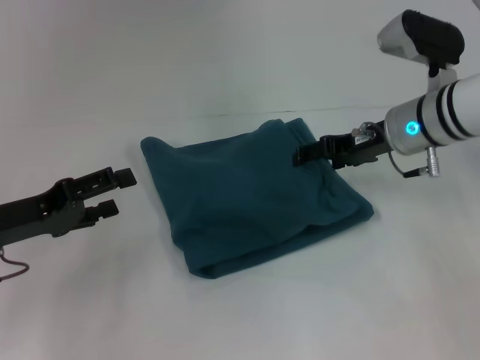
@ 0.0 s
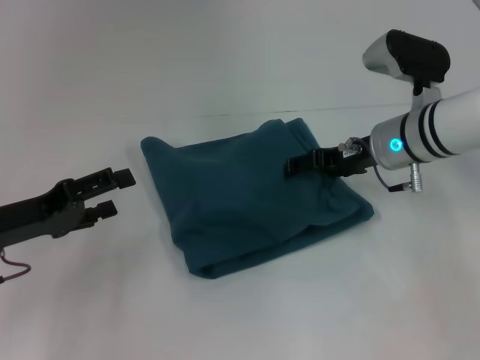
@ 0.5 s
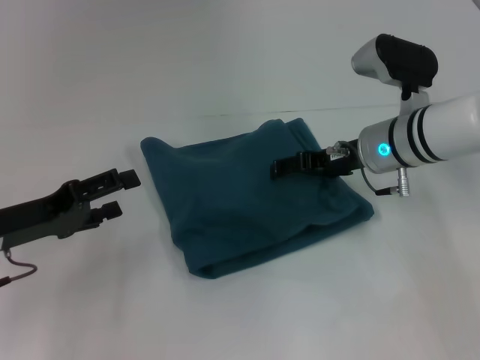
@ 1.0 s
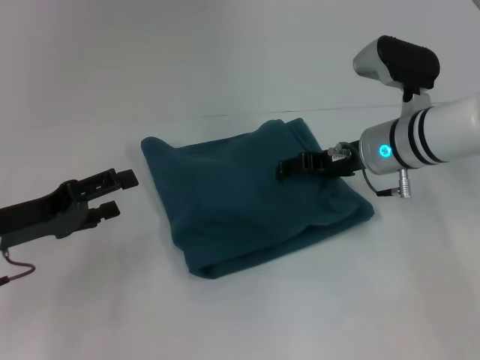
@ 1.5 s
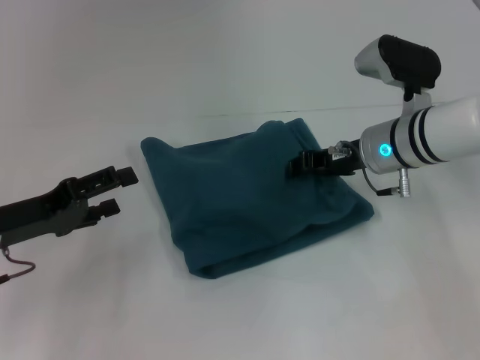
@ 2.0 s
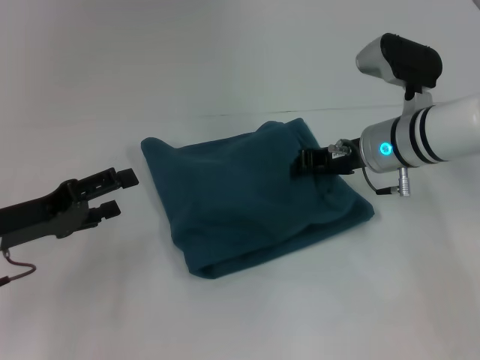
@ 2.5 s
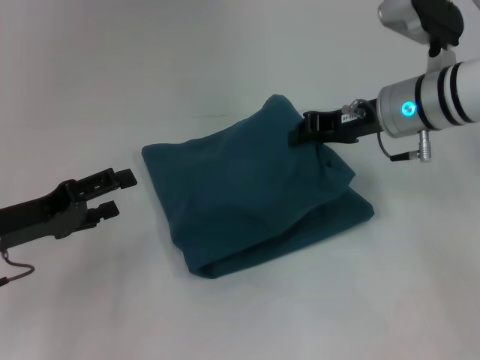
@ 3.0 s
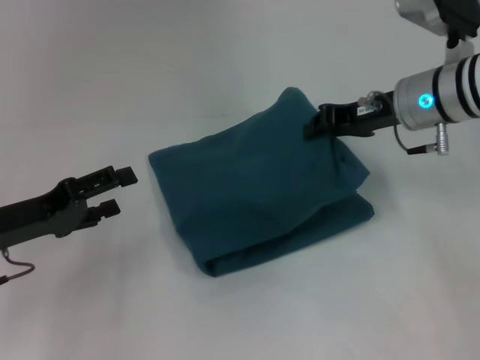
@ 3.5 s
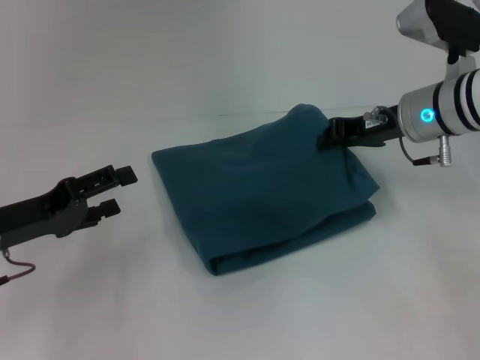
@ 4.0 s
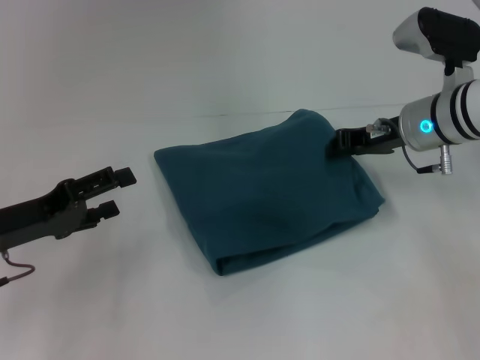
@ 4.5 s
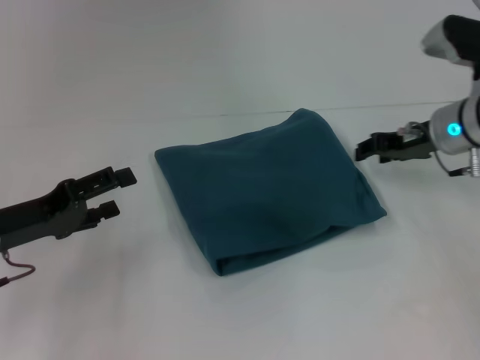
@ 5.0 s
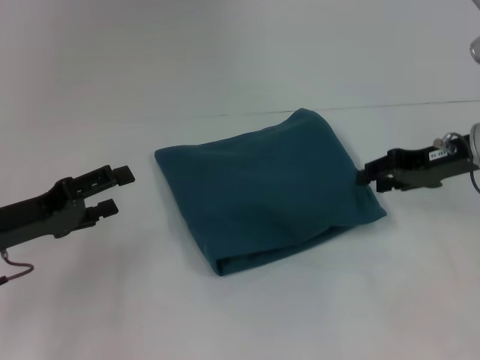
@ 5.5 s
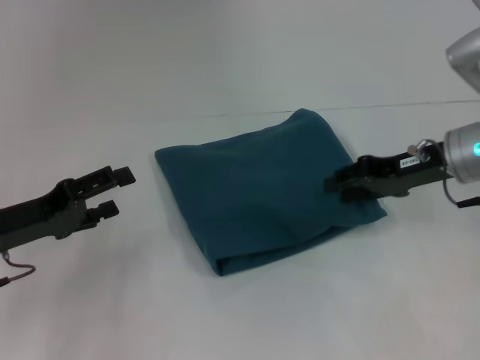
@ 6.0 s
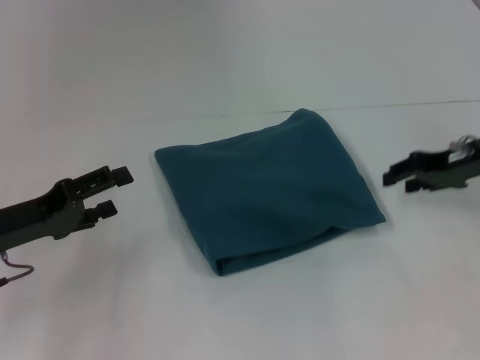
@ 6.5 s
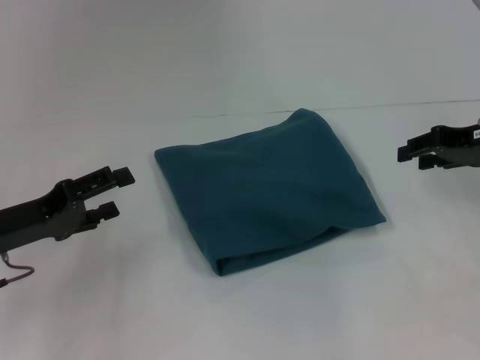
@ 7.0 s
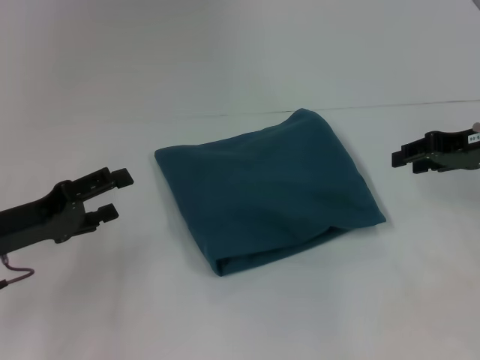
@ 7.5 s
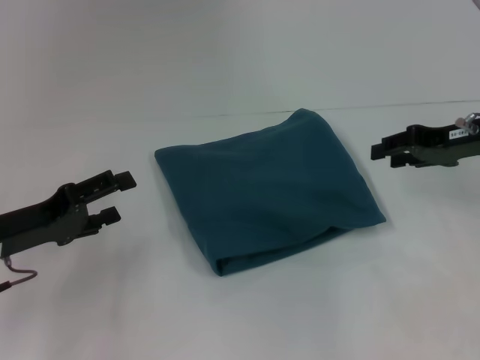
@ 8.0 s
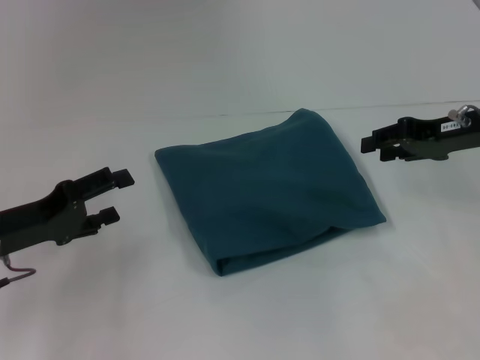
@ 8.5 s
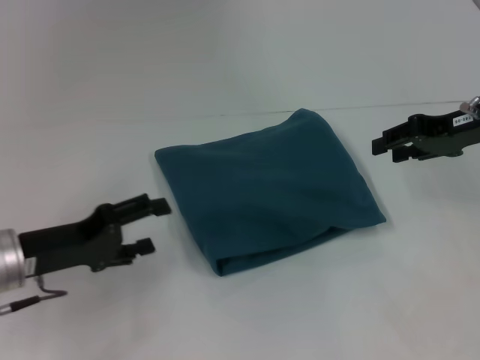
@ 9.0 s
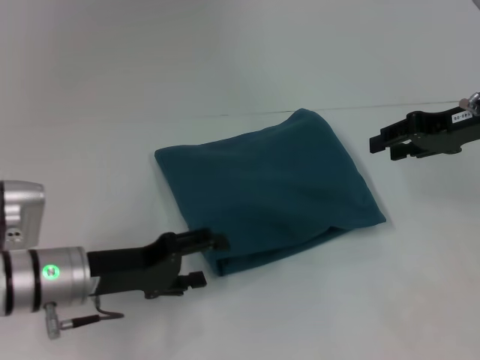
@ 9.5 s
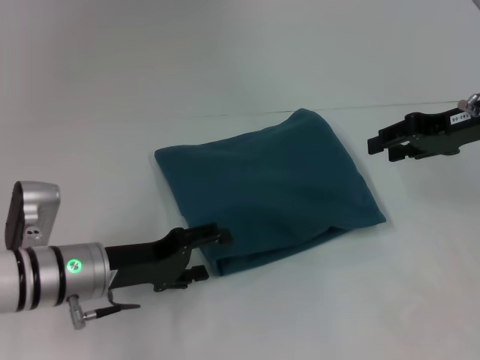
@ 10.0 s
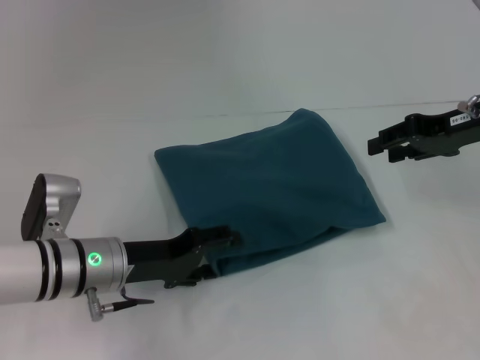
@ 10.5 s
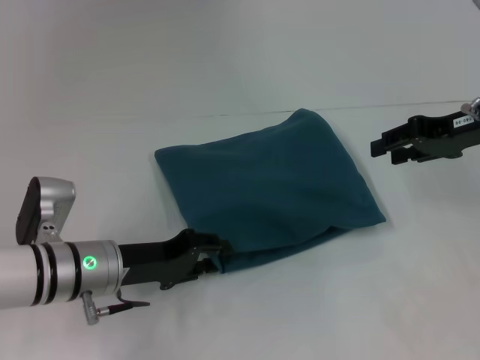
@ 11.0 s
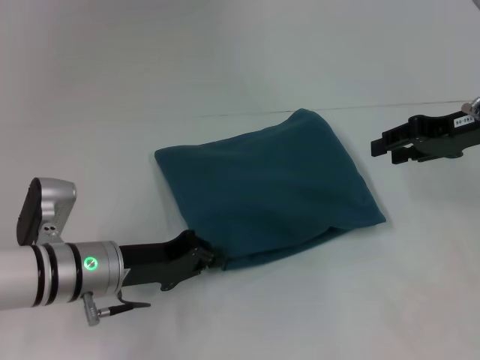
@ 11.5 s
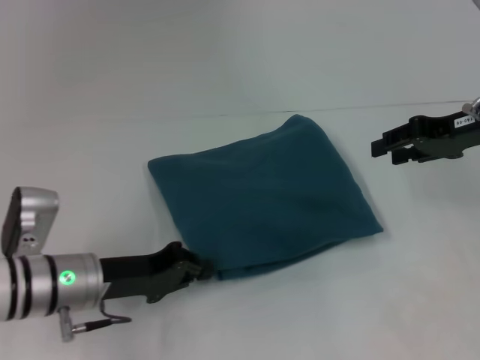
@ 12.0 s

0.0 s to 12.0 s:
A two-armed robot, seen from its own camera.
0.0 to 2.0 s: The right gripper closes its fingers.
2.0 to 4.0 s: The right gripper shifts by roughly 5 cm.
4.0 to 6.0 s: The right gripper changes place by approximately 5 cm, and opens.
8.0 to 10.0 s: The left gripper travels to the right by about 10 cm.
10.0 to 12.0 s: The left gripper closes its fingers.

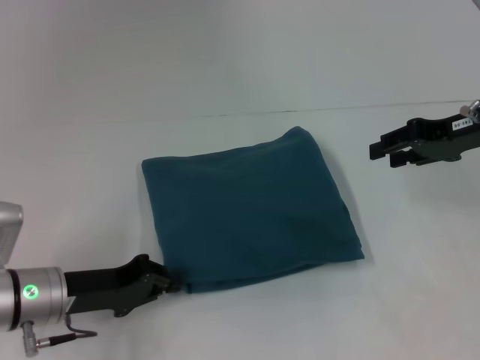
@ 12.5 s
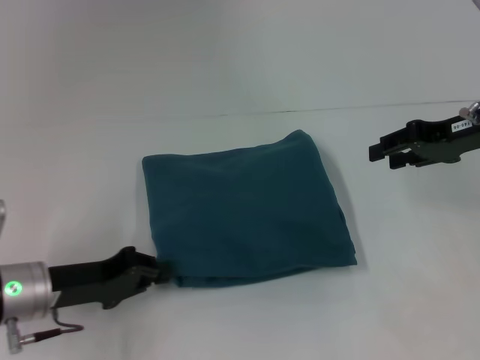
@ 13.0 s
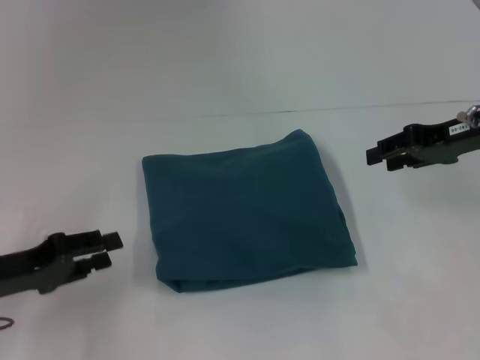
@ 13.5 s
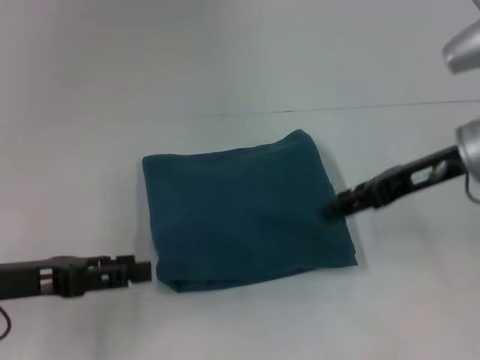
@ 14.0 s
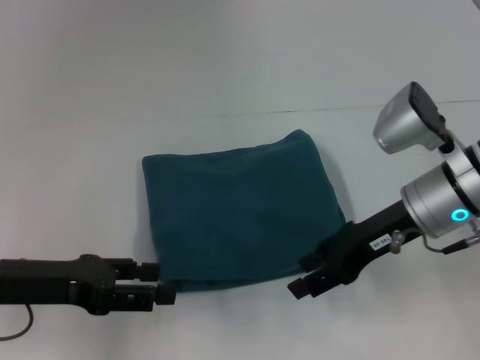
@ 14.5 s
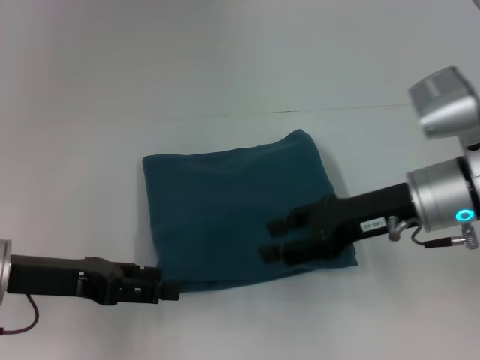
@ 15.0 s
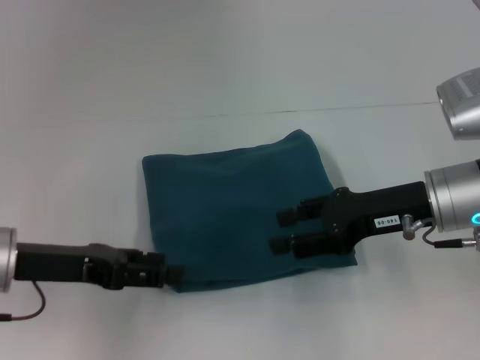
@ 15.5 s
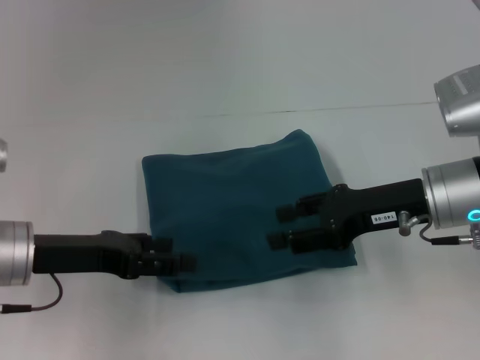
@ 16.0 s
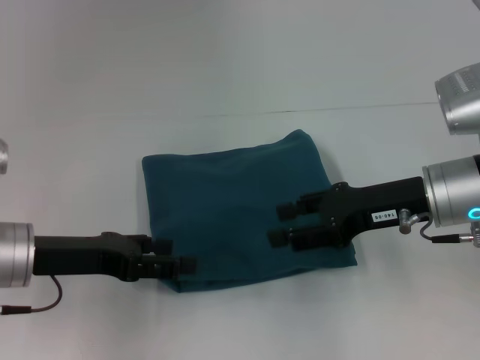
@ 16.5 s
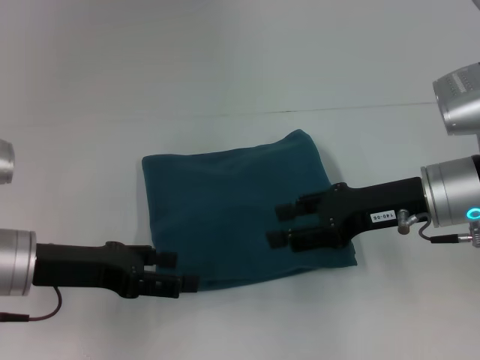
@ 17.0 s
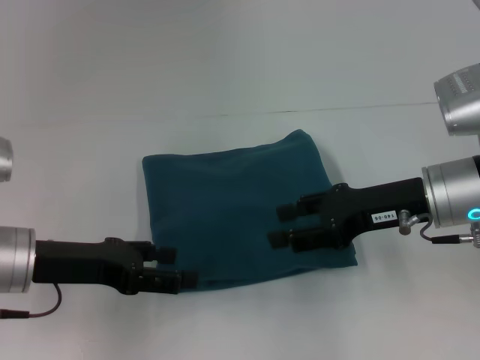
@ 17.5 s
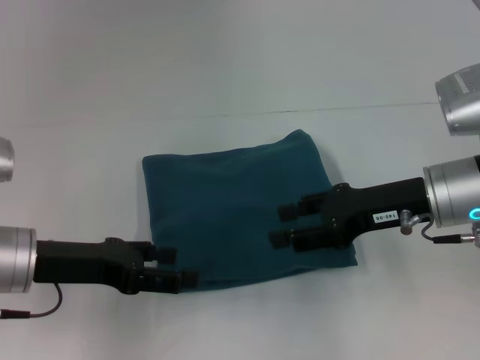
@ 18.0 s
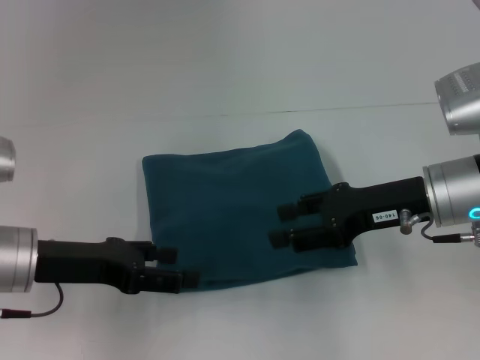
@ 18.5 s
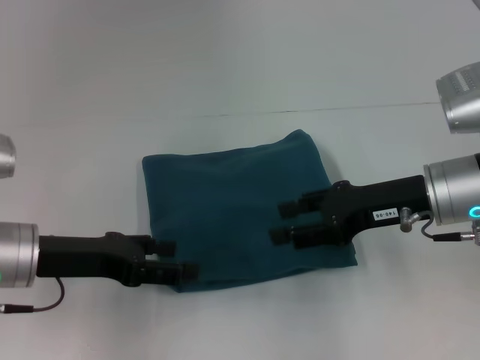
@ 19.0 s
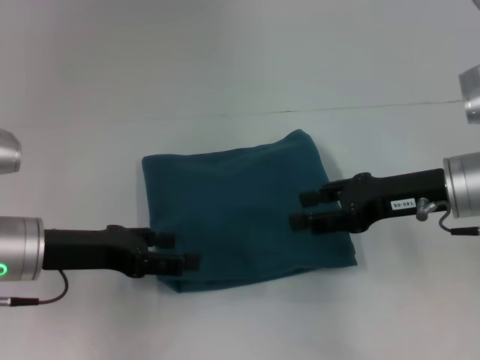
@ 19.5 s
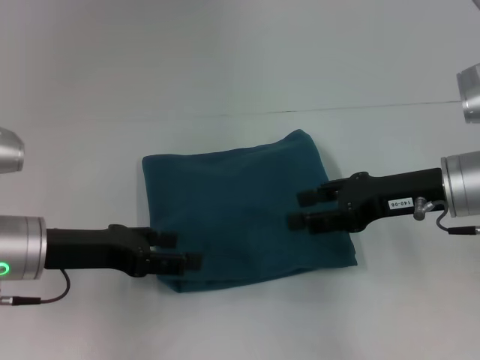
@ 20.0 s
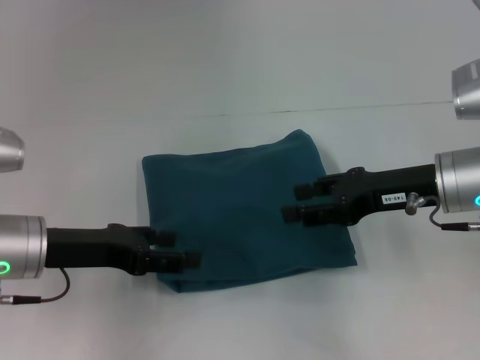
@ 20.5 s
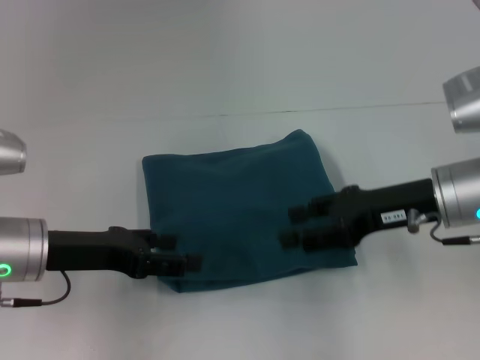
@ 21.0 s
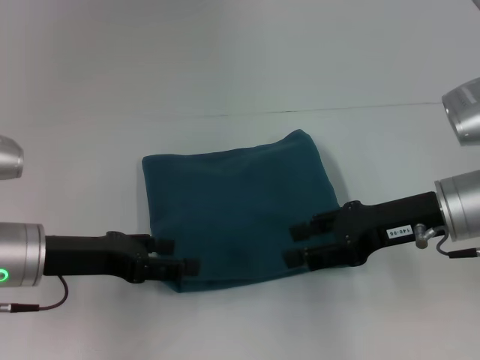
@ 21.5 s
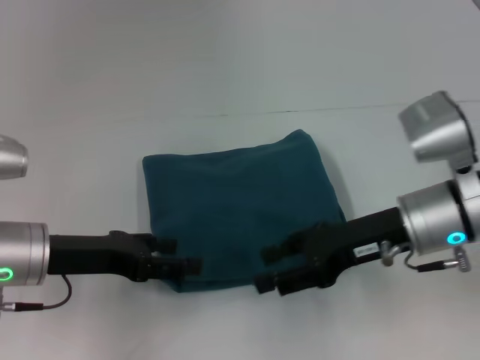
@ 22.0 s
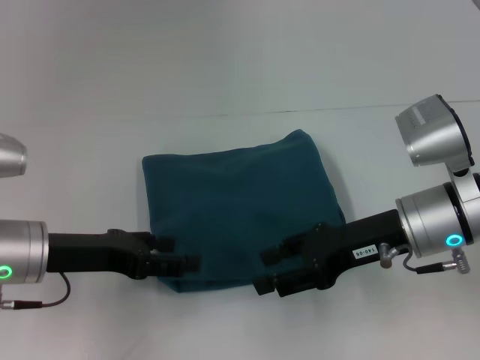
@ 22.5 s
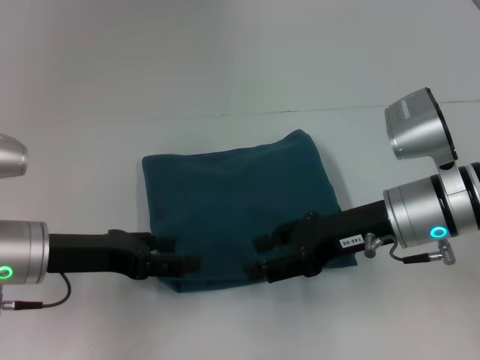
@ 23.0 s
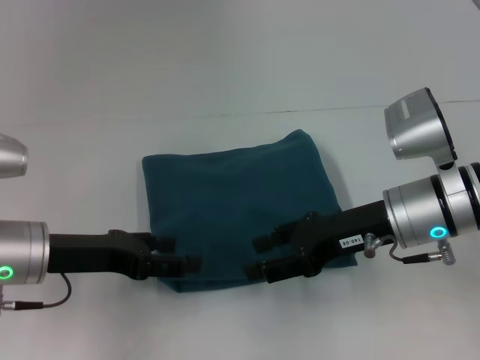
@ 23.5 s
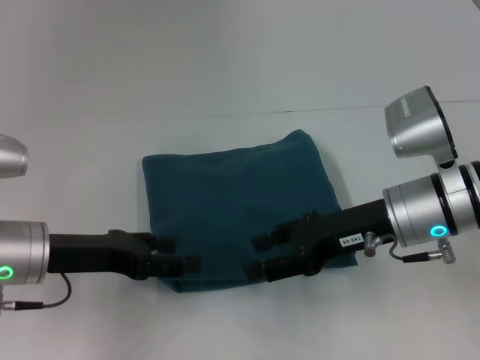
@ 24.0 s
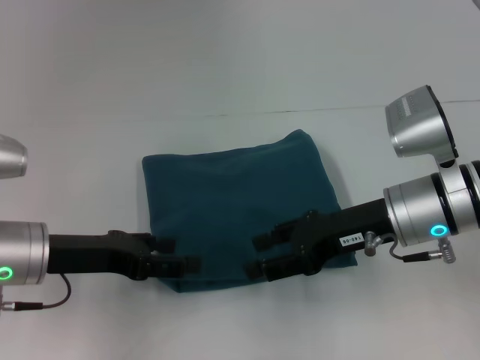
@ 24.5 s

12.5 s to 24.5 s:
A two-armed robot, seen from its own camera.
12.5 to 14.5 s: The right gripper heads to the left, covering approximately 10 cm; the left gripper moves upward, roughly 5 cm, and opens its fingers.
16.5 to 22.5 s: The grippers move only a little.
22.5 to 24.5 s: The two grippers keep their place.

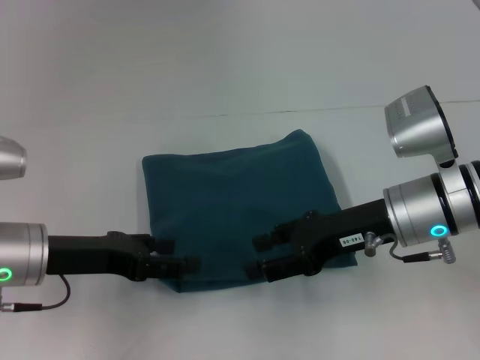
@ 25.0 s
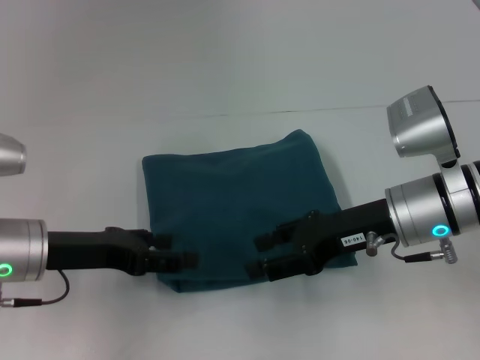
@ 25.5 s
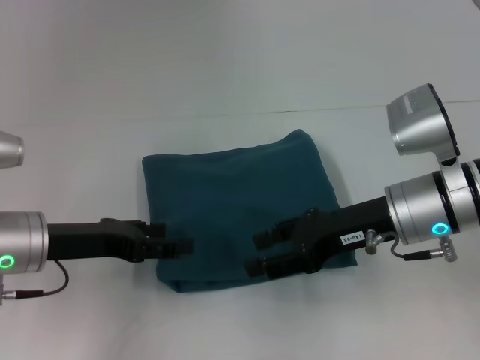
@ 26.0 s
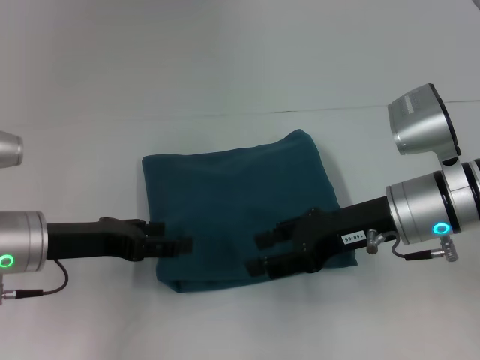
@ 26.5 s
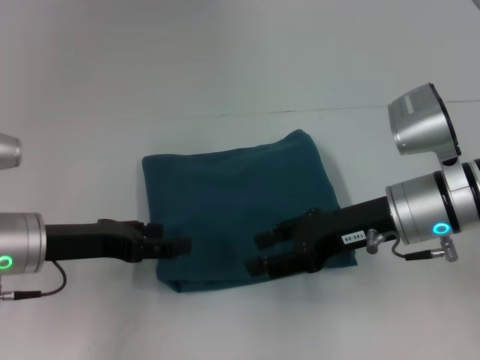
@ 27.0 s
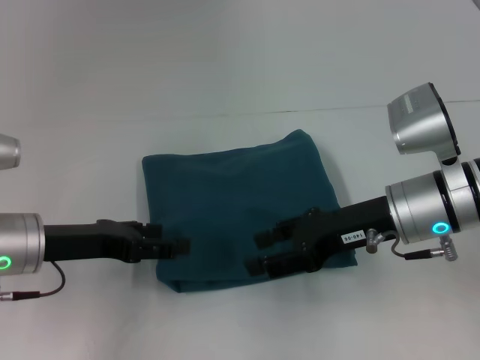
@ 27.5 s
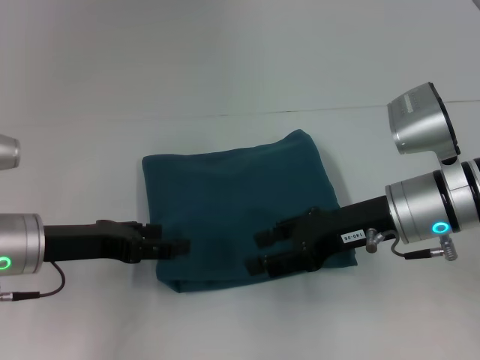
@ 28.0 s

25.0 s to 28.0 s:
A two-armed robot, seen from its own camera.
25.0 to 26.5 s: There are only small adjustments of the grippers.
26.5 to 28.0 s: The two grippers keep their place.
